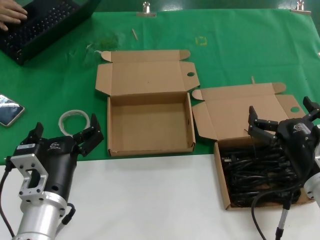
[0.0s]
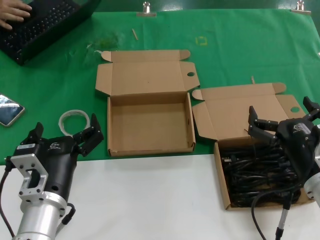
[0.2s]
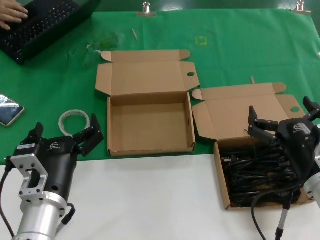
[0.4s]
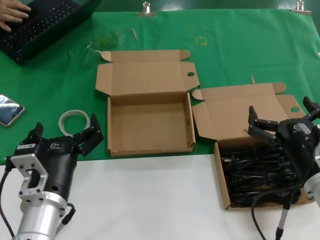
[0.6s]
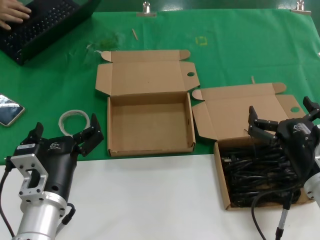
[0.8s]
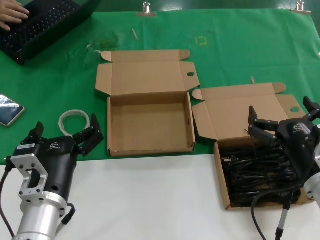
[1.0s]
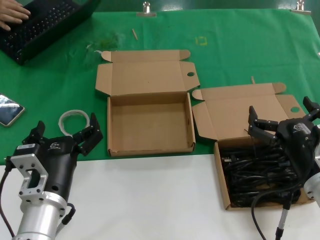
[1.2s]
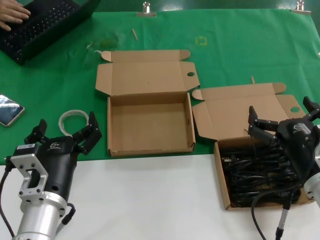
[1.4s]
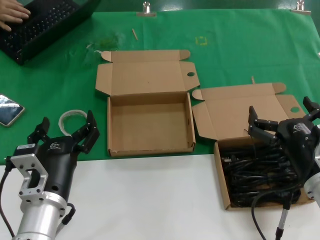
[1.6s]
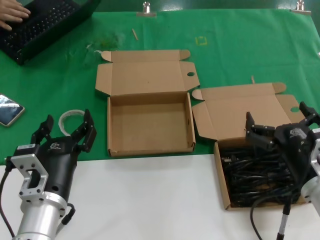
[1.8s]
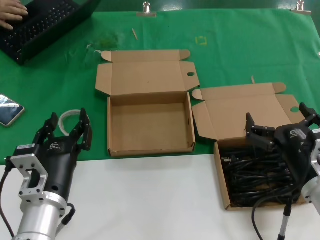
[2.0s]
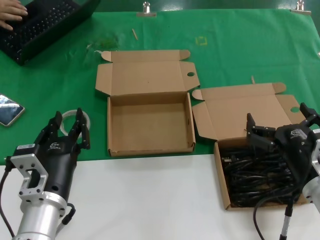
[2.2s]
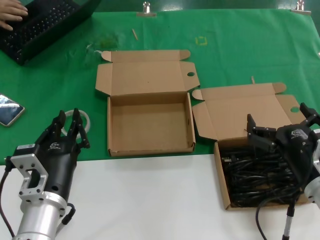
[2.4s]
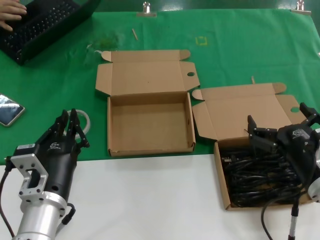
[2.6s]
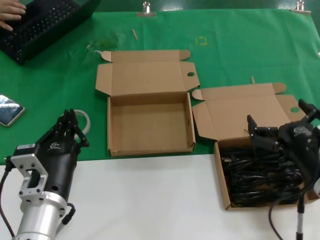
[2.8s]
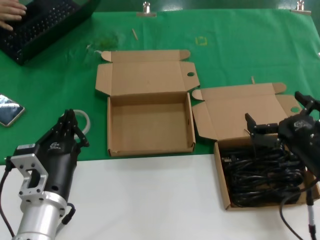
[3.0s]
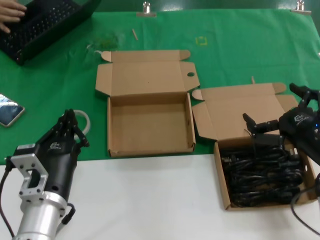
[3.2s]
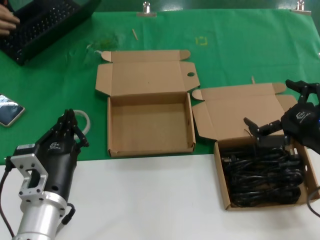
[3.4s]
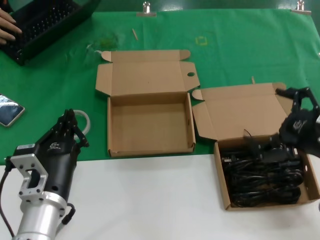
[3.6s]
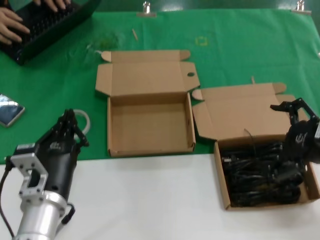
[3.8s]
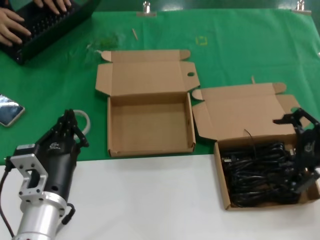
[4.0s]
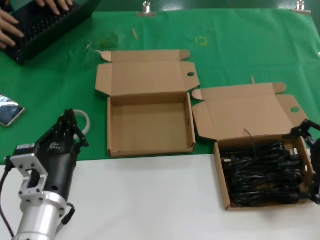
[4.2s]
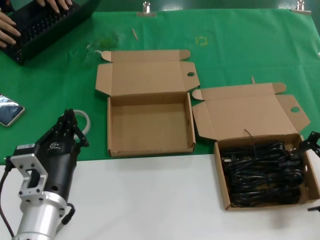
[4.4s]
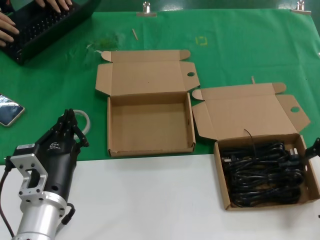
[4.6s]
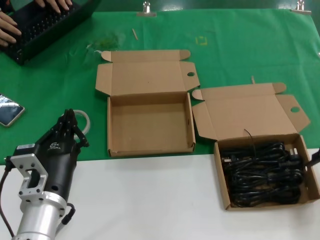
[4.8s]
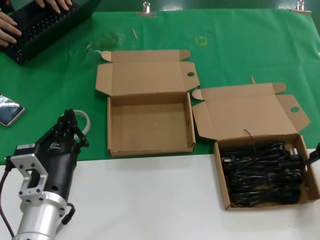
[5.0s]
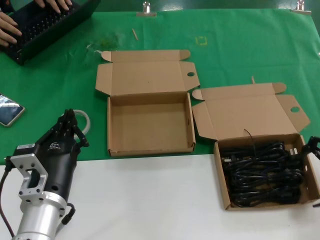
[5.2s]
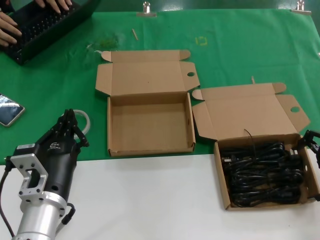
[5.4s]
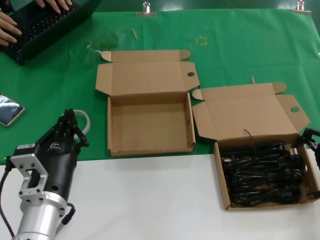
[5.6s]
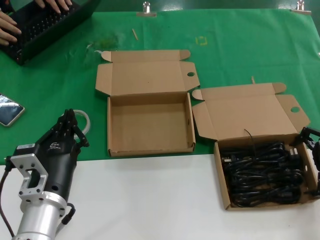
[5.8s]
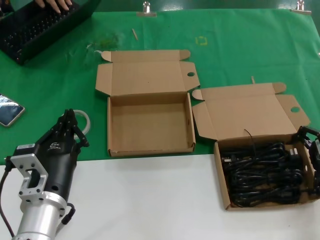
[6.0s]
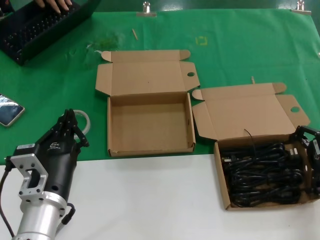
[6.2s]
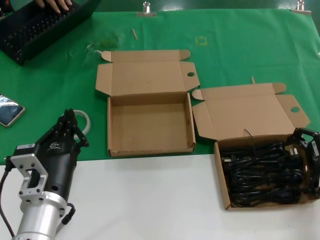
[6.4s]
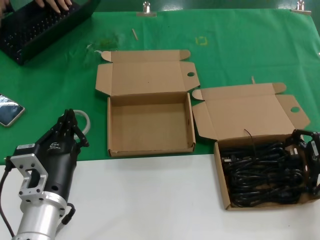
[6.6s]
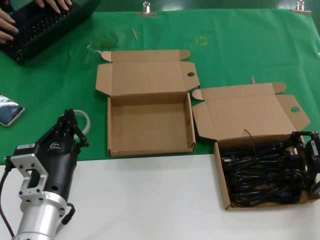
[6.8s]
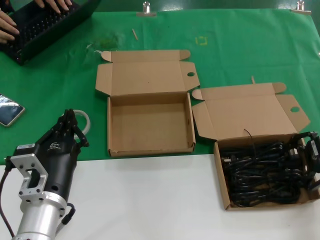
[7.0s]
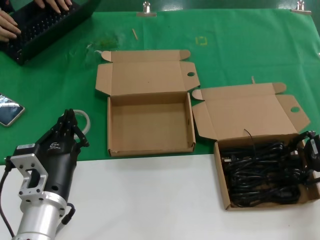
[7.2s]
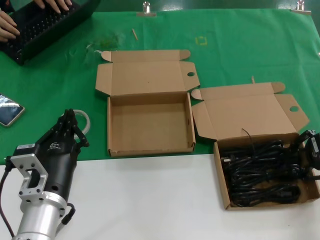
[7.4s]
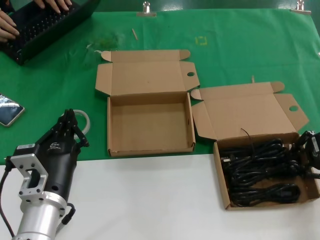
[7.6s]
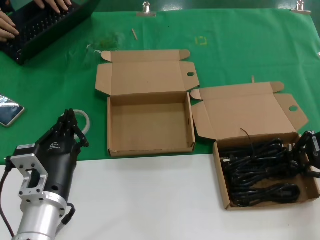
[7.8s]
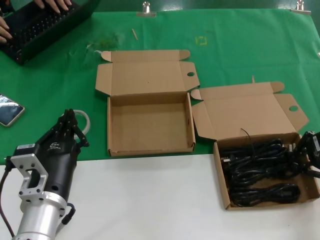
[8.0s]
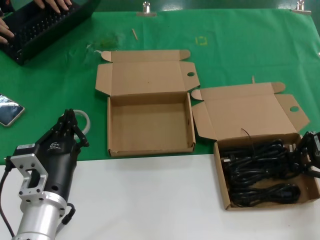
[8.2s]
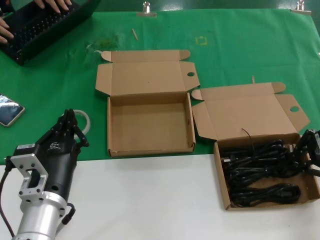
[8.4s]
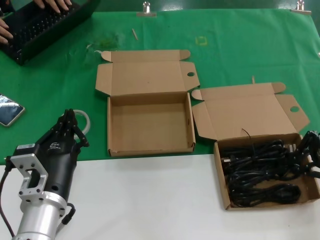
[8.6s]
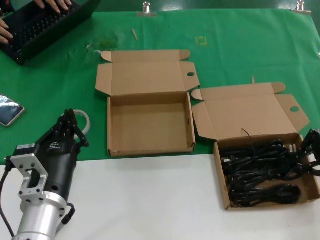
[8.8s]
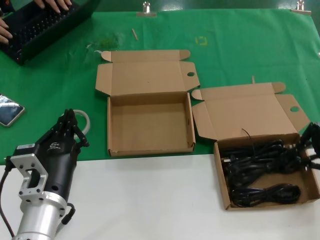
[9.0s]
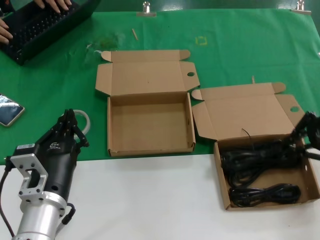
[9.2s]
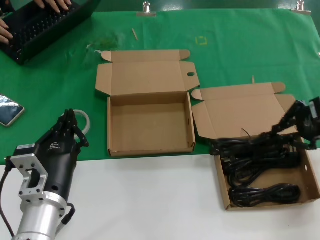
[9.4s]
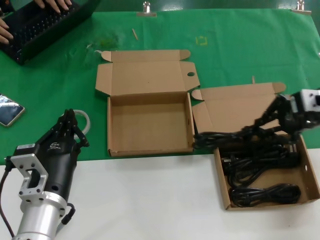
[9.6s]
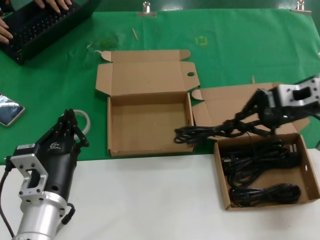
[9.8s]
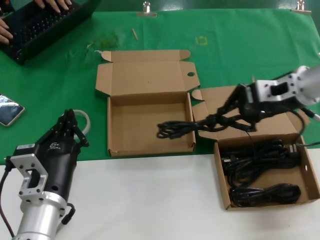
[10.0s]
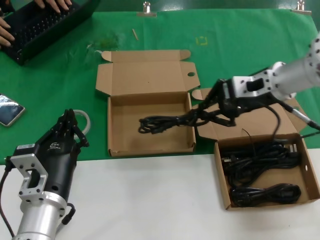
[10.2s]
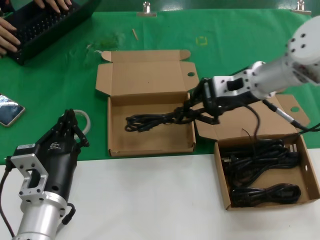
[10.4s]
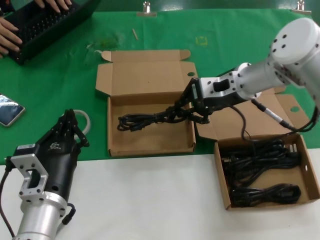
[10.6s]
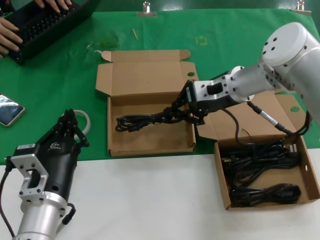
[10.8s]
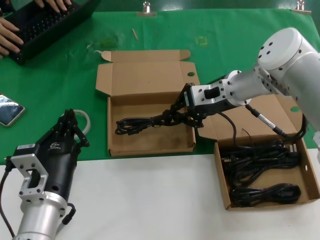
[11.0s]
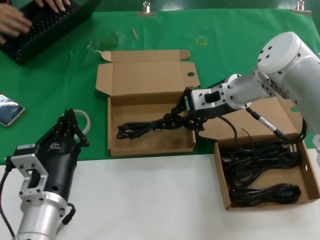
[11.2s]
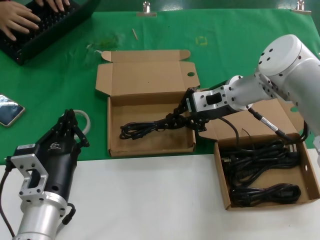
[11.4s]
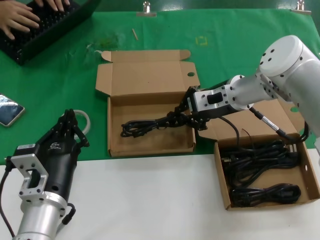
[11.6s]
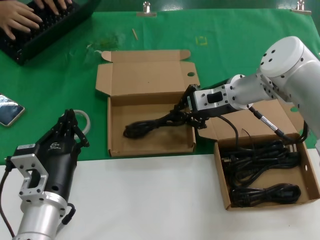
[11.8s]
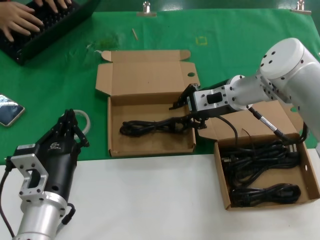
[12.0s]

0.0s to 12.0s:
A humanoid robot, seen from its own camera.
Task of the whole recording: take the parts from the box containing them and put them into an empty box.
Step, 0.0s to 7.4s: Grasp the data cable.
Step, 7.6s to 12.0s: Place the data cable in the another box.
0.0s to 1.6s: Neither hand changes place.
1.6s to 3.0s: The hands stay close to where they were, moving slightly.
3.0s to 4.4s: The right hand moves upward, to the right and forward, some 20 cm.
4.4s to 6.0s: The right hand travels forward and downward by roughly 10 cm.
6.0s to 7.6s: Both hands stay put.
7.6s to 9.0s: The right hand heads upward, covering approximately 5 cm.
9.0s to 10.4s: The right hand moves to the left and forward, approximately 20 cm.
10.4s to 12.0s: The right hand shifts by approximately 5 cm.

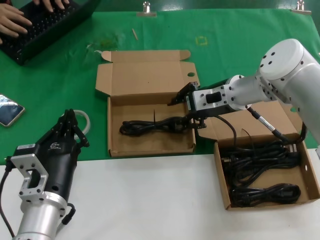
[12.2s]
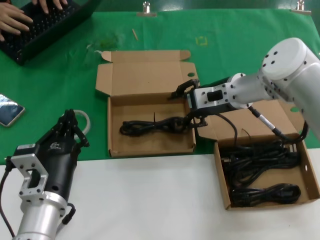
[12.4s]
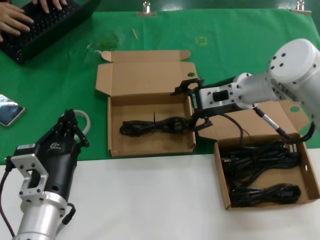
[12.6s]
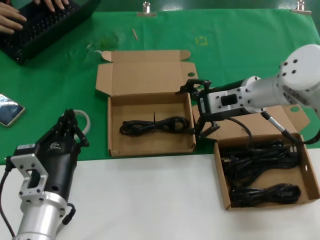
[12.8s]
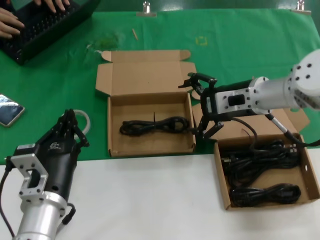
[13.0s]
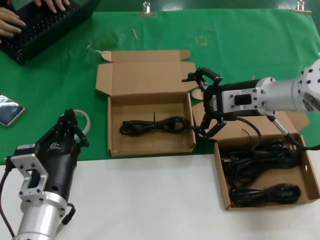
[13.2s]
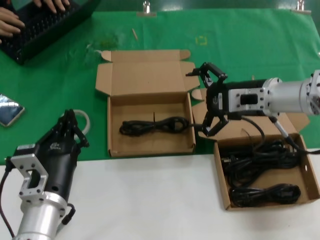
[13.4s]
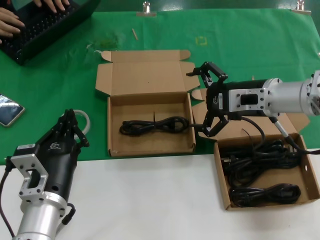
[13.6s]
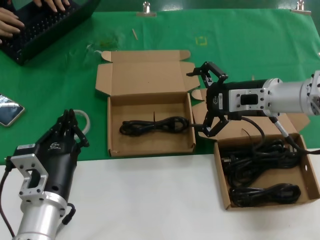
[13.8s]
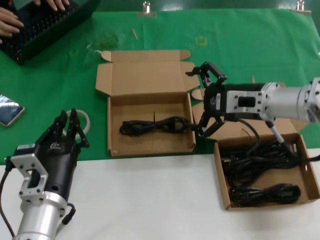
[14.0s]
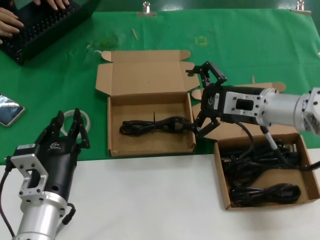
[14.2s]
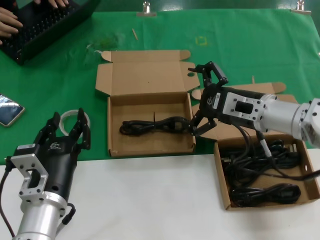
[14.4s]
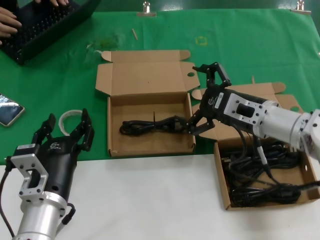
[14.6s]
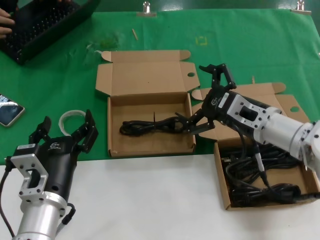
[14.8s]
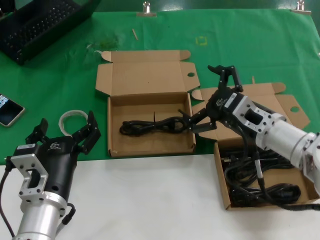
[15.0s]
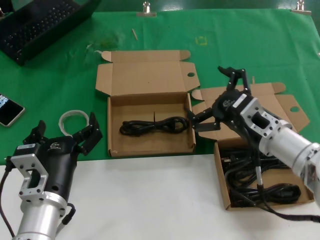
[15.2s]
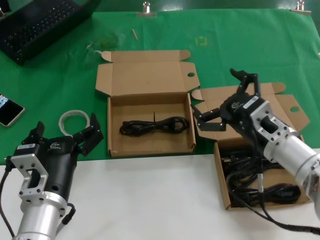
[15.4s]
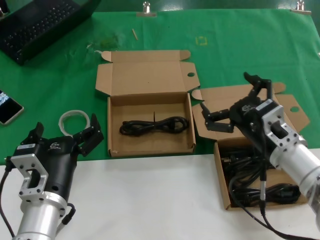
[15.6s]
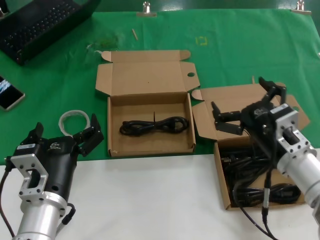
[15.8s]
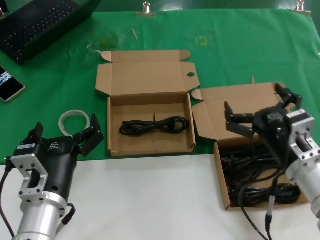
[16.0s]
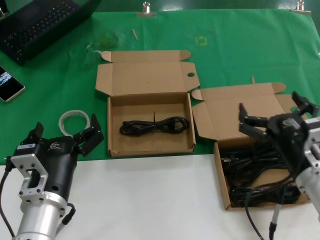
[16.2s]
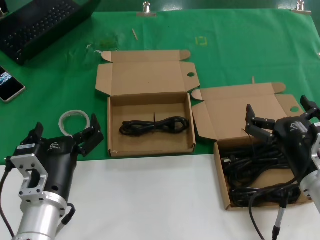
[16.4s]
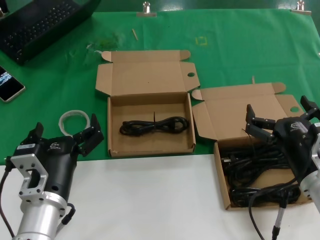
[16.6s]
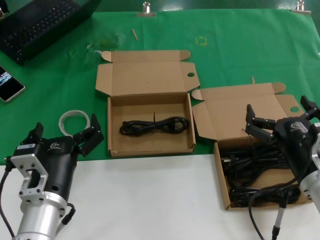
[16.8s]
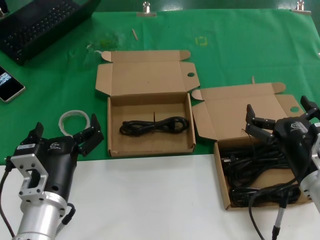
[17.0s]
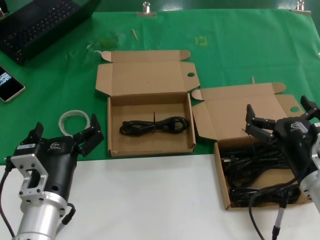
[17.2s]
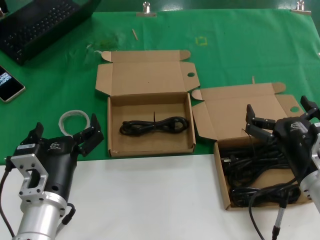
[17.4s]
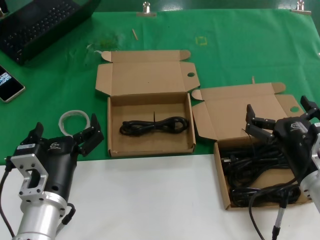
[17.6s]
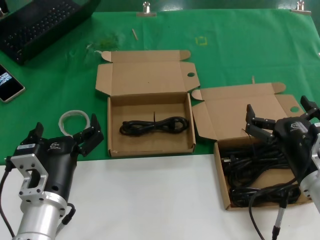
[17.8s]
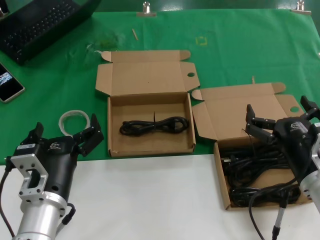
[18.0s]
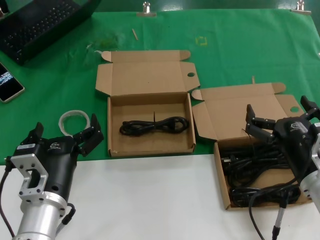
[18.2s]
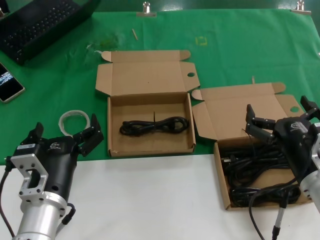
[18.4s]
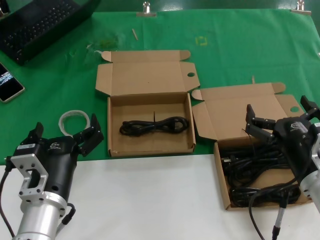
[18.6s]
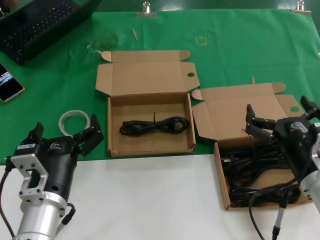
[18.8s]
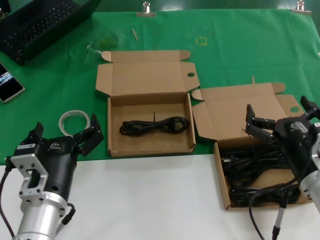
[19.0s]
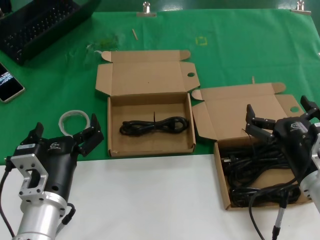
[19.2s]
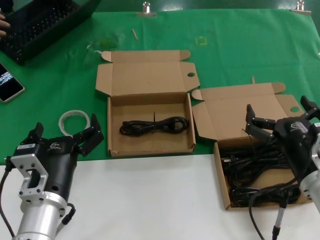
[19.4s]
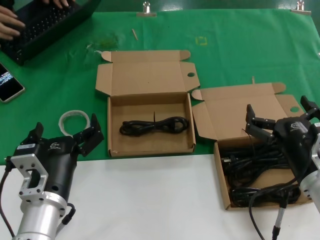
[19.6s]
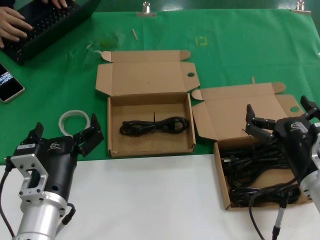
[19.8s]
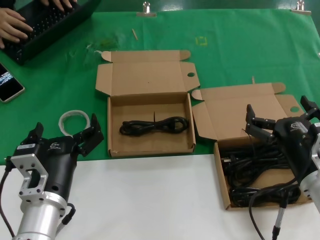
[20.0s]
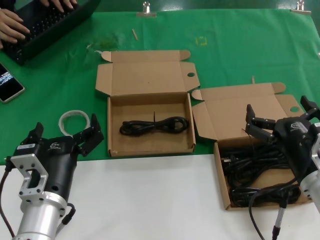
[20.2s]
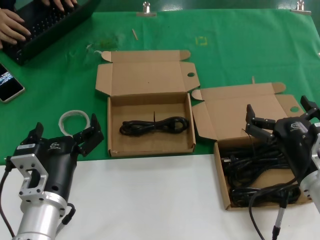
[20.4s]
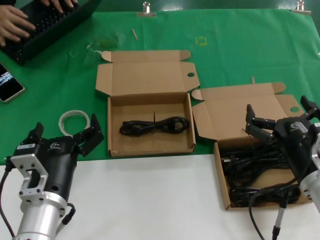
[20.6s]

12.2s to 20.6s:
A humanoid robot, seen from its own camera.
Task of the whole recording: take the parts from the box containing them and put them into an empty box.
12.2s to 13.6s: The right hand travels to the right and backward by some 10 cm.
13.6s to 15.0s: The right hand heads downward and backward, covering some 10 cm.
15.0s to 16.4s: The right hand moves backward, about 10 cm.
16.4s to 20.6s: Both hands stay about where they are.

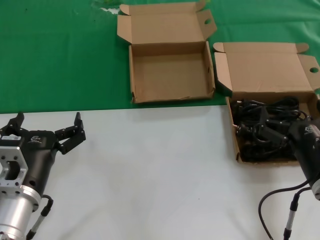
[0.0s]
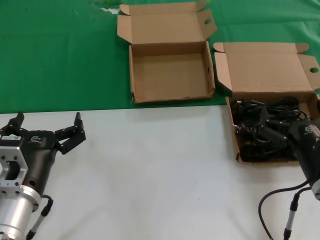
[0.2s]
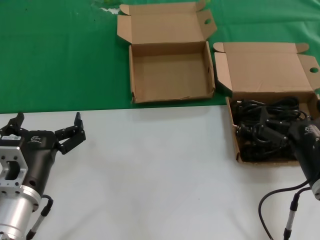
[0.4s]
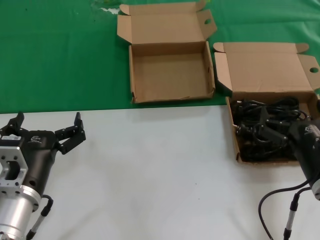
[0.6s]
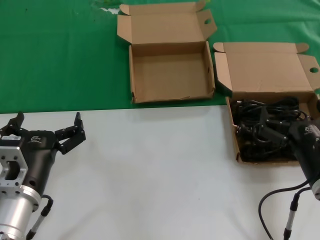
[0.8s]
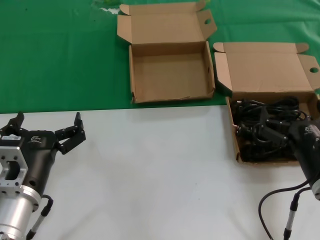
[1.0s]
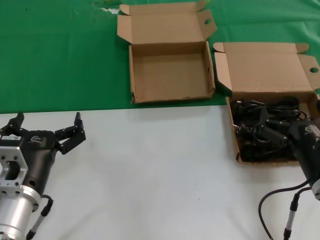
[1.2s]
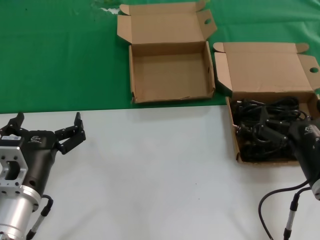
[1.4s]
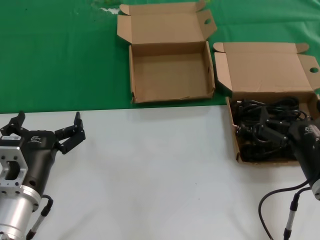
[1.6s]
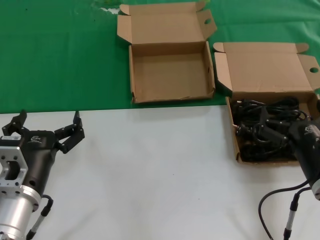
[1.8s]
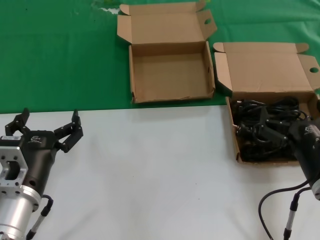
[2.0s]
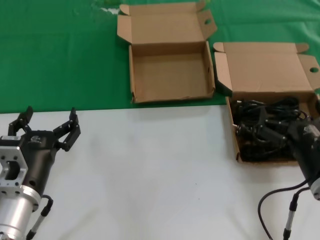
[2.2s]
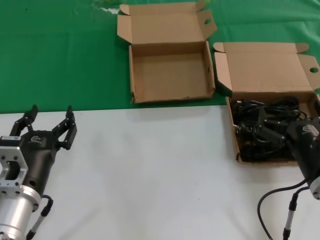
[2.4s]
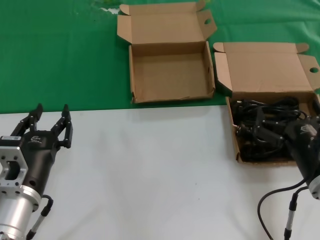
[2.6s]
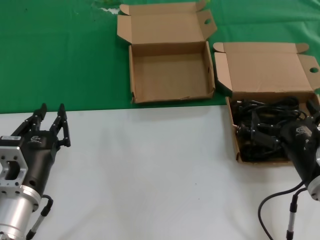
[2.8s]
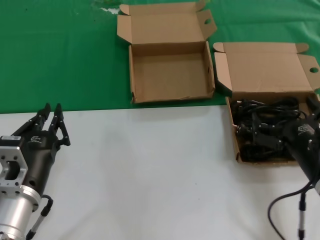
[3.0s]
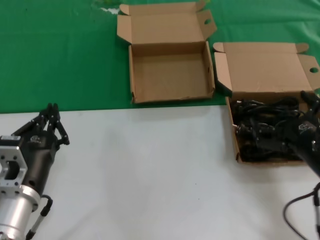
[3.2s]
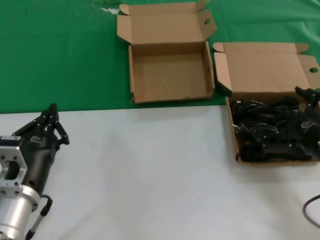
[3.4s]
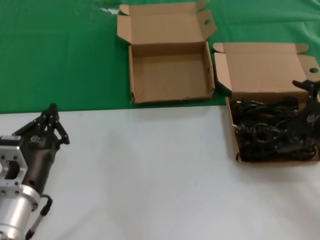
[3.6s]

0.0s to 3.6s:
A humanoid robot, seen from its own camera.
Task of the whole recording: take the parts from the box containing them and put them into an empty box.
0.0s to 1.8s: Both hands stay about where they are.
1.8s to 3.6s: The right hand heads to the right and upward, covering about 10 cm.
